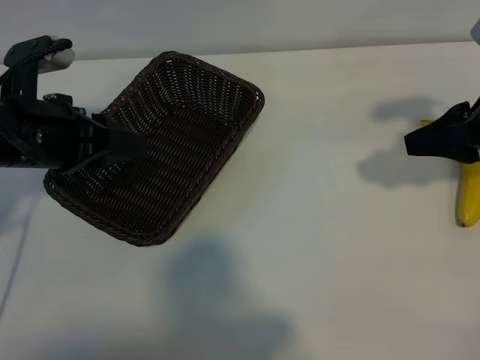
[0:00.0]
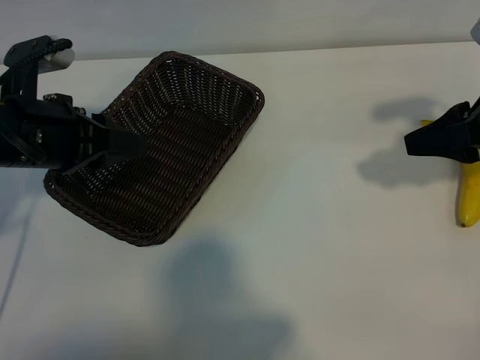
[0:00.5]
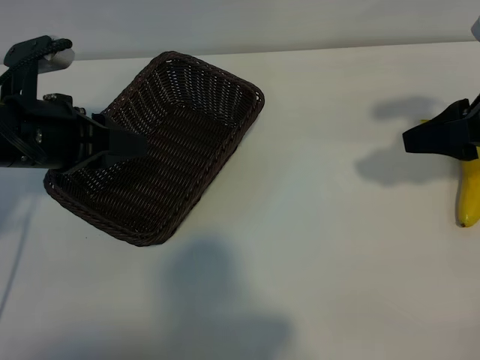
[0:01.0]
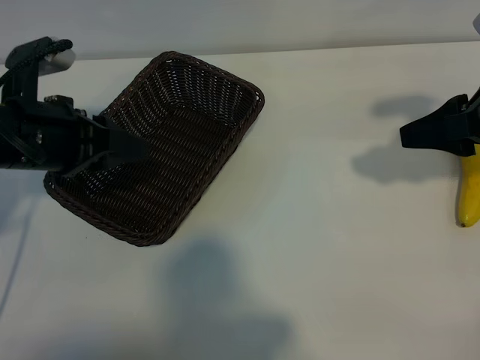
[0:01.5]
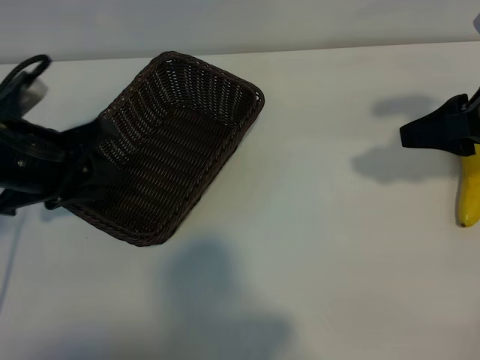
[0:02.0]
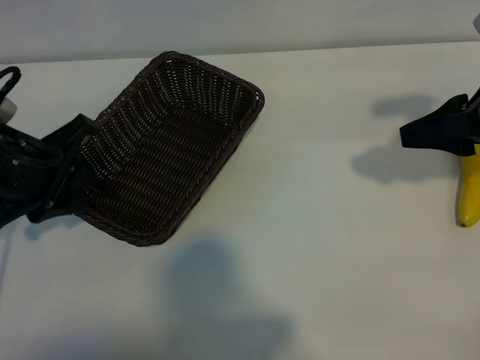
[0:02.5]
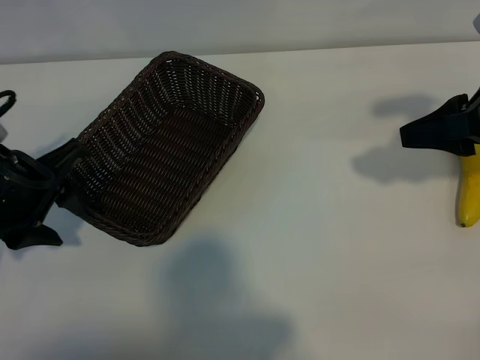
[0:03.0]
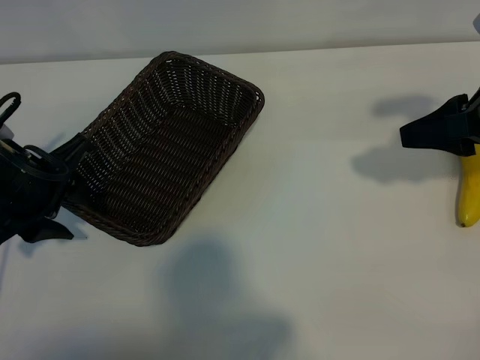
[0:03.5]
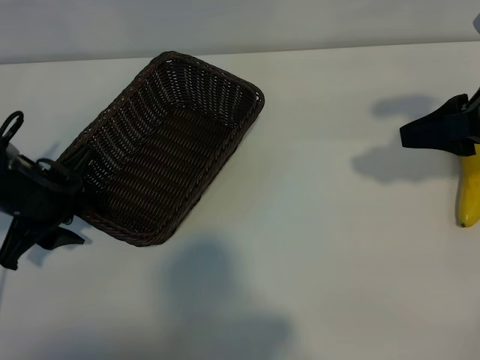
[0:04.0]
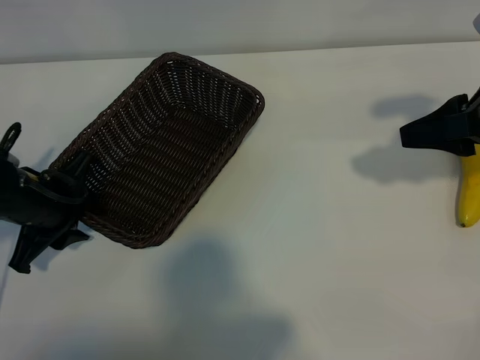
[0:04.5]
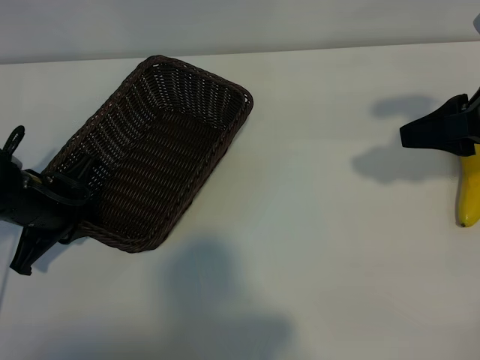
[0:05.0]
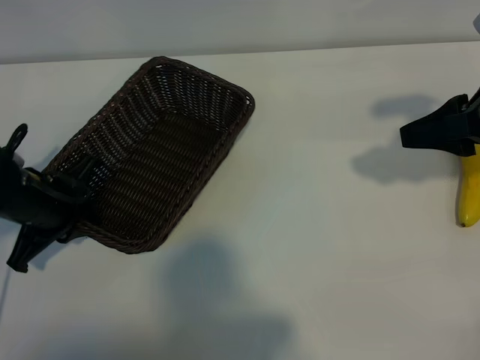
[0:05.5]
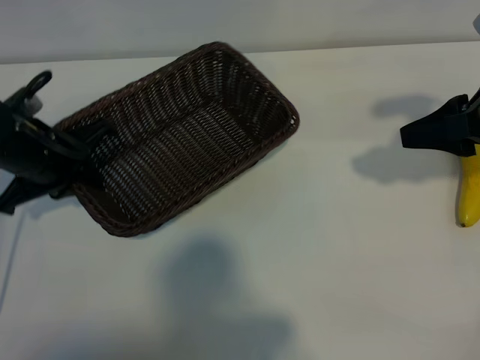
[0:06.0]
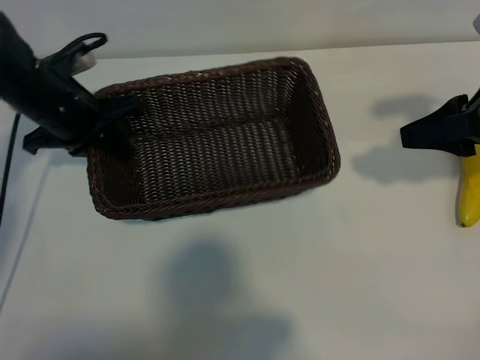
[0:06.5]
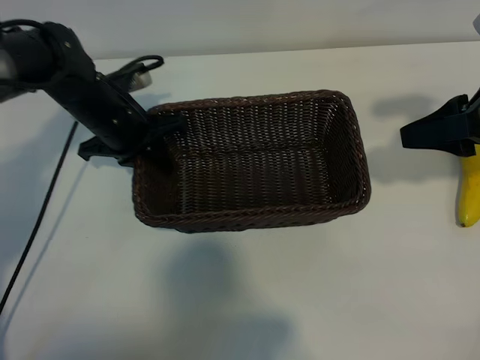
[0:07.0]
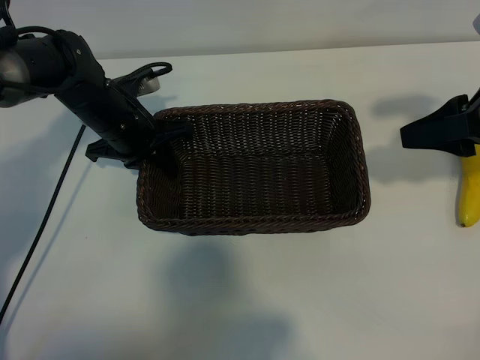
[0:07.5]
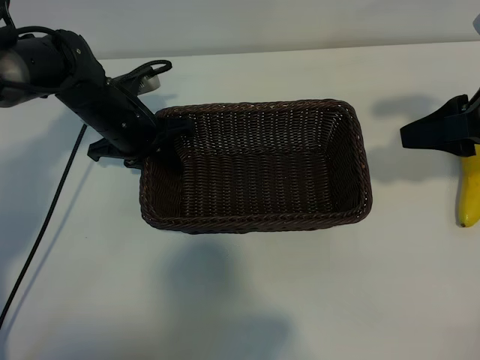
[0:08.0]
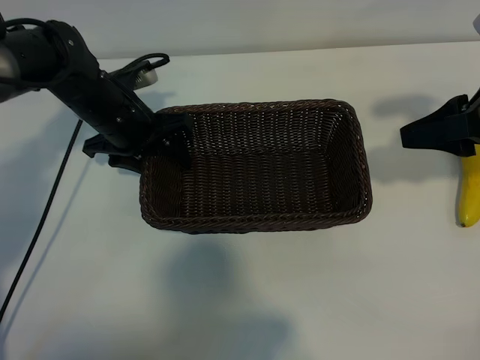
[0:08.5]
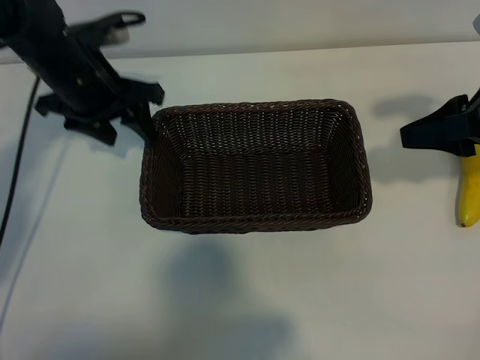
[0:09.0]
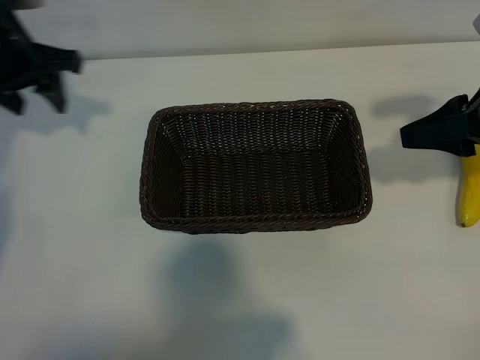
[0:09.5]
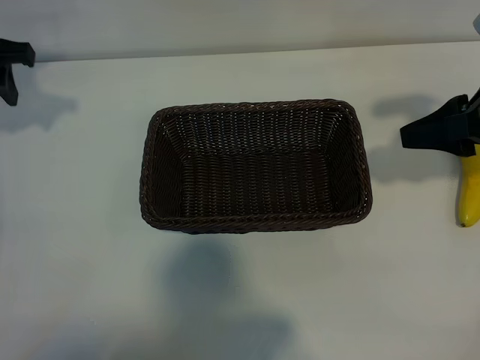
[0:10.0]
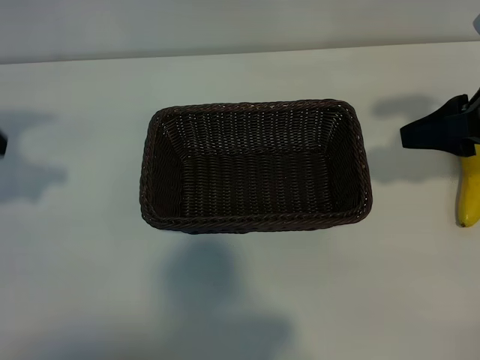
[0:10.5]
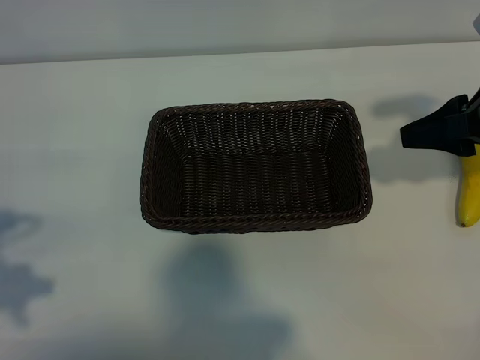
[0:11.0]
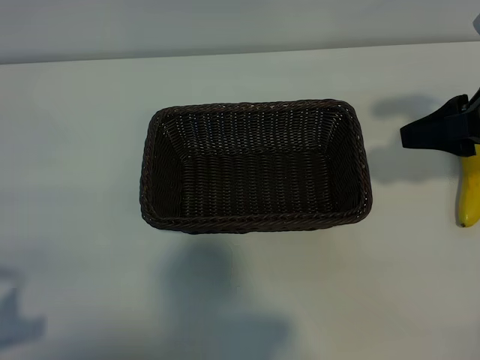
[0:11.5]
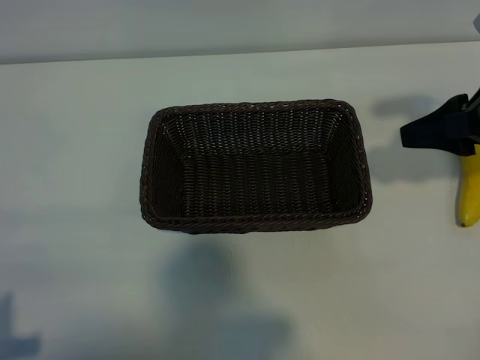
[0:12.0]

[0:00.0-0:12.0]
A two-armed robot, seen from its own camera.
Task of the whole recording: pick up the banana and put it into the basket.
Step, 0:01.0 to 0:04.5: Grasp the basket with the left gripper.
Step, 0:05.0 to 0:09.0: Place the basket in the center of the table with the left gripper.

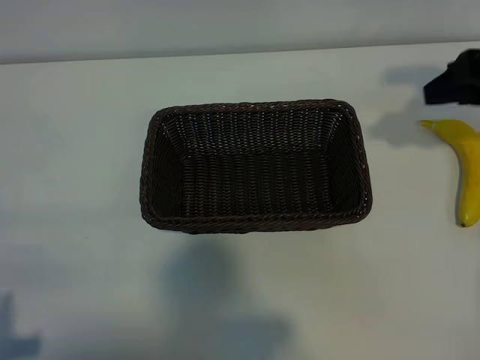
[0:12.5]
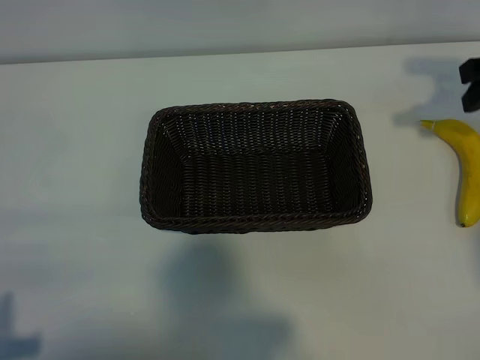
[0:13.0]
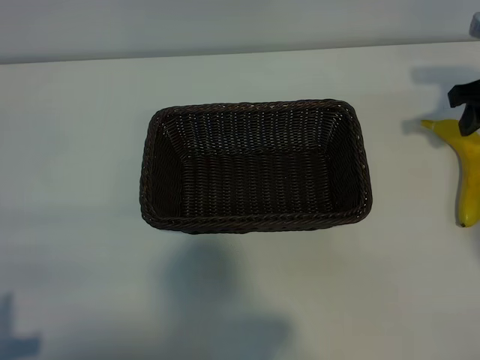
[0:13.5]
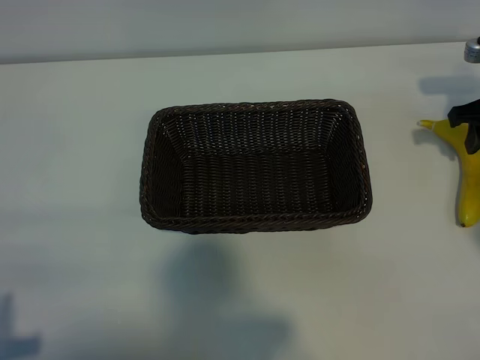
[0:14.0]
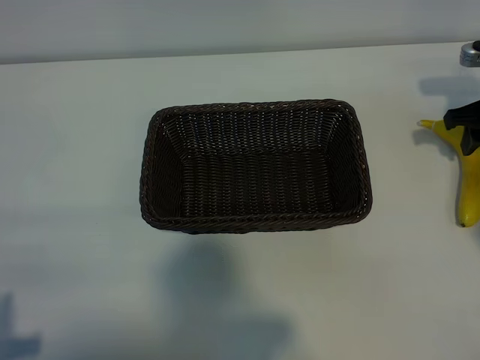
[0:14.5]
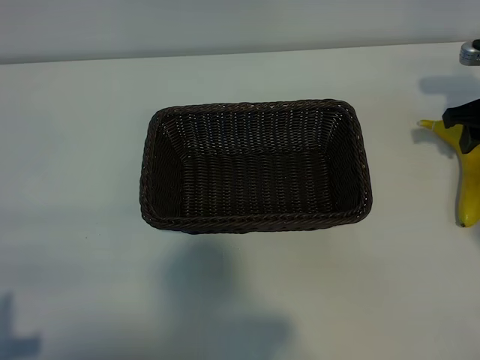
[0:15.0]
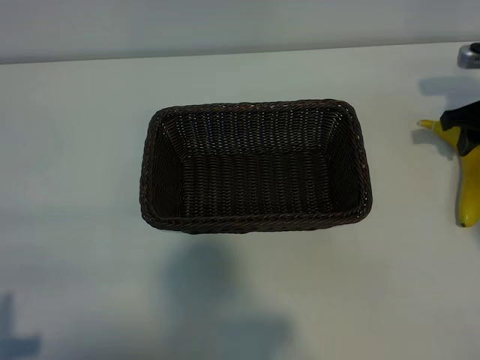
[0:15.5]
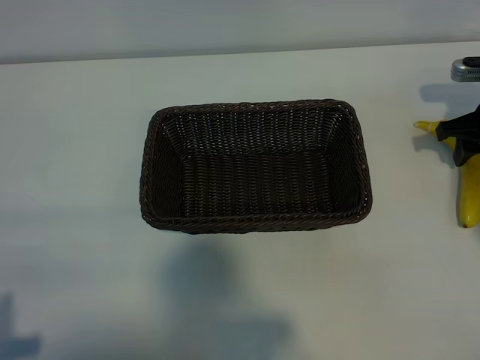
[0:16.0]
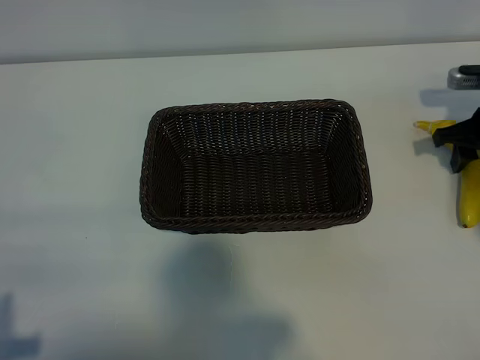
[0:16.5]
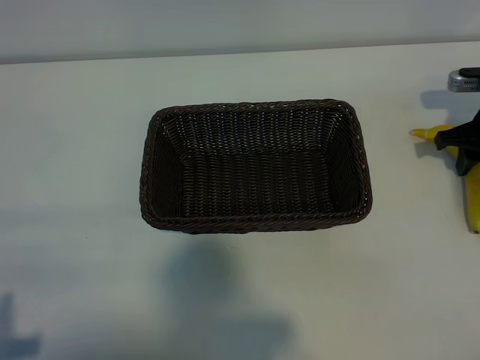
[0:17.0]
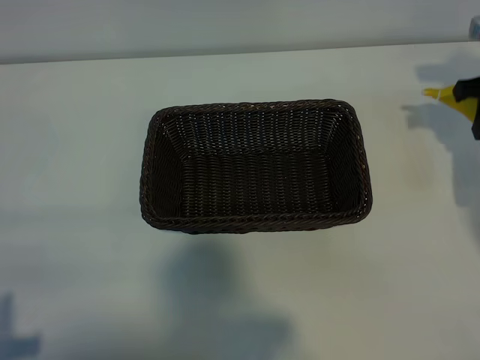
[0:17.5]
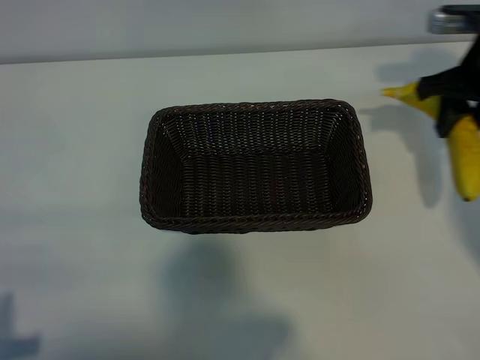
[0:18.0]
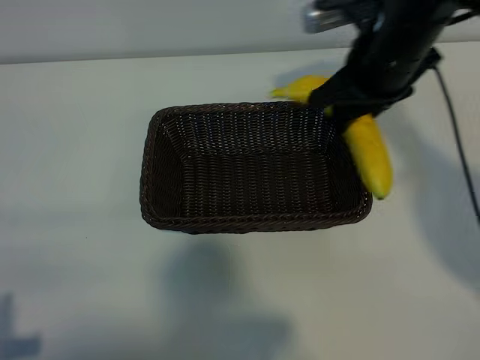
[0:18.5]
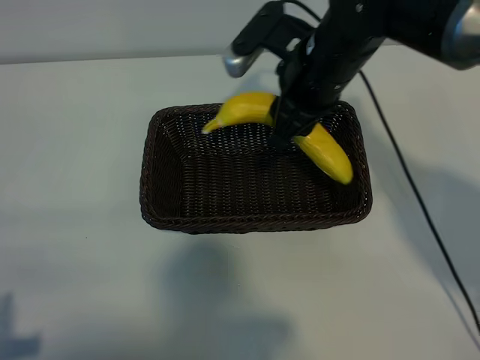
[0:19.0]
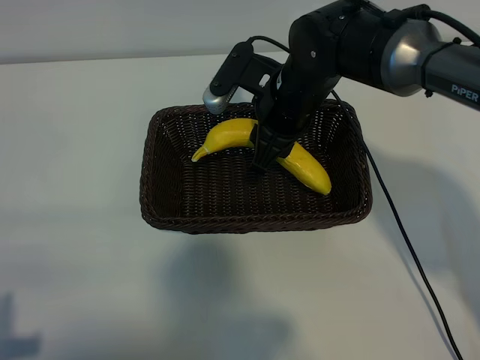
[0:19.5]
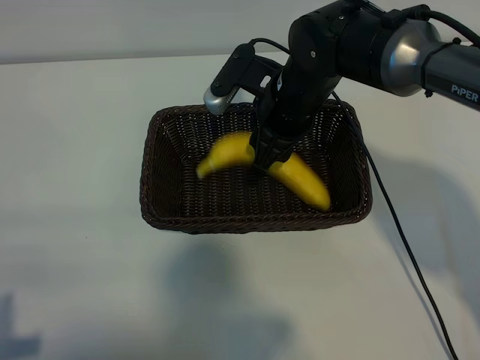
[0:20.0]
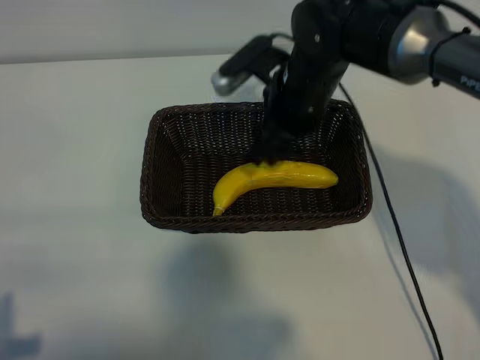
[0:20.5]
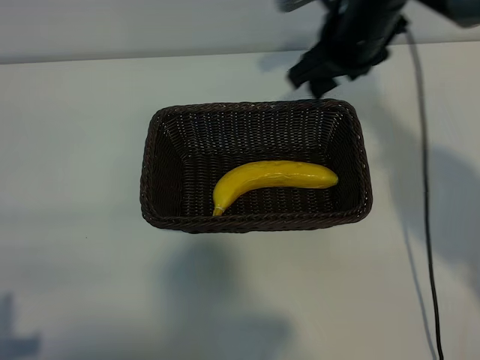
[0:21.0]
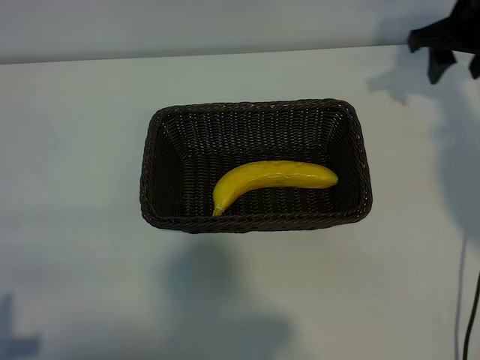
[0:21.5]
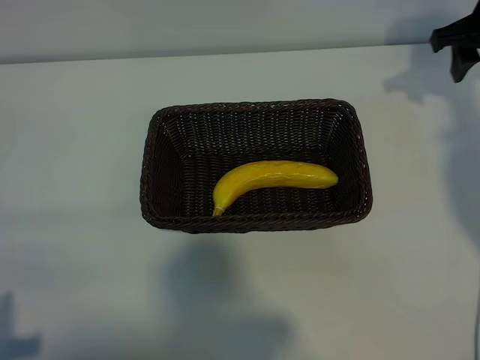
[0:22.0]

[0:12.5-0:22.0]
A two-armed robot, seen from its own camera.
Task of the whole recording: pick up the banana and put it into the basket.
Step, 0:12.5 to 0:16.5: Grasp the banana with right gripper.
Step, 0:17.0 to 0:20.5: Place the banana in the basket with right gripper.

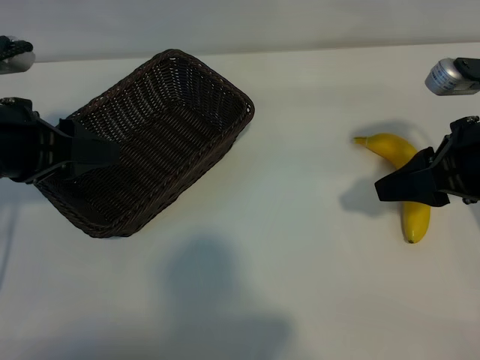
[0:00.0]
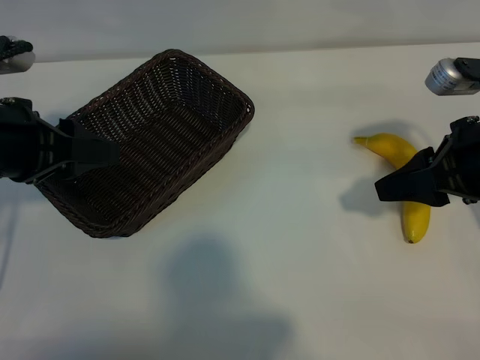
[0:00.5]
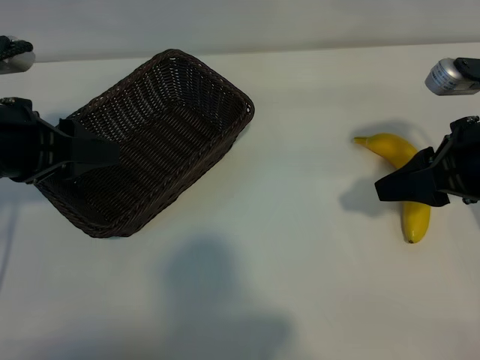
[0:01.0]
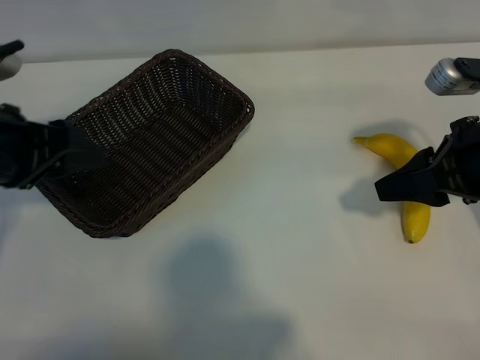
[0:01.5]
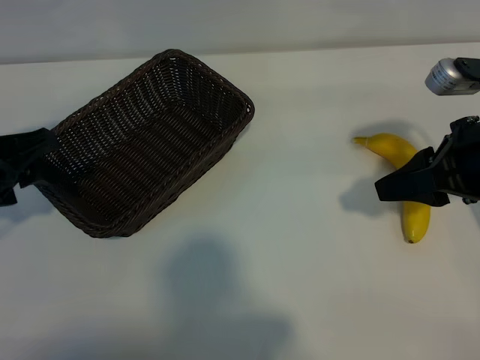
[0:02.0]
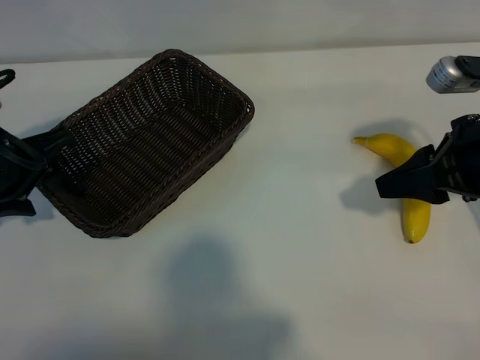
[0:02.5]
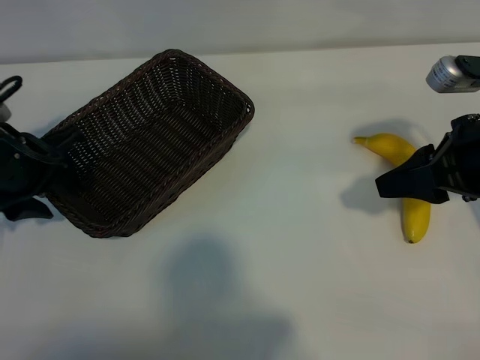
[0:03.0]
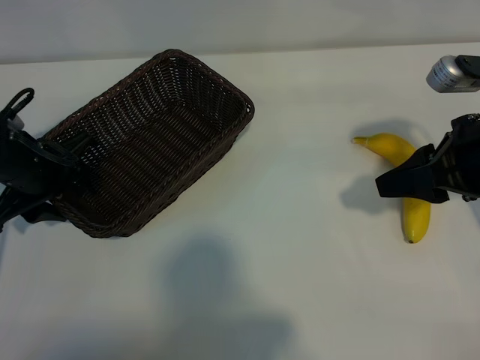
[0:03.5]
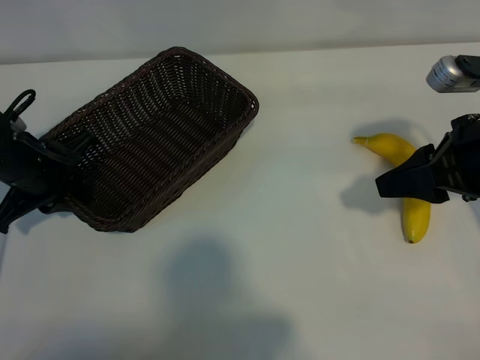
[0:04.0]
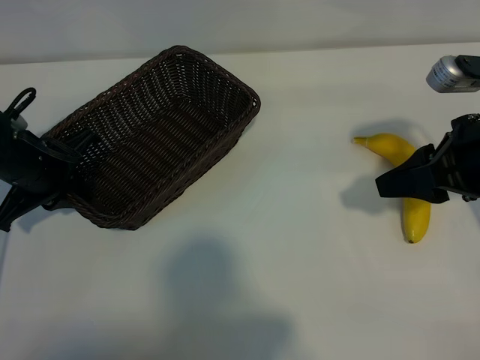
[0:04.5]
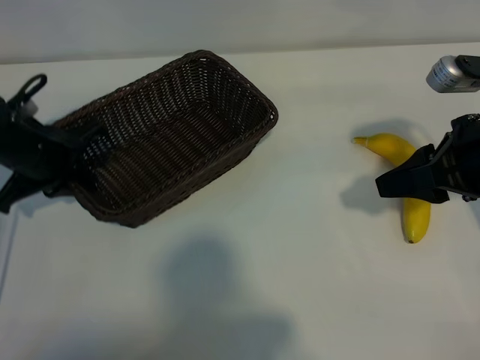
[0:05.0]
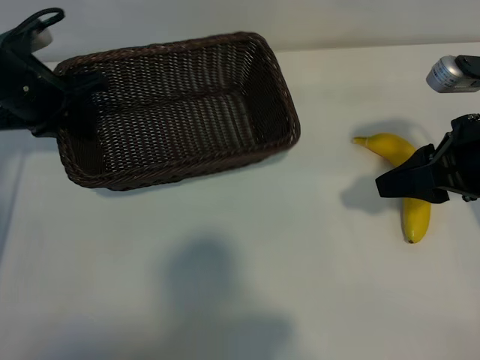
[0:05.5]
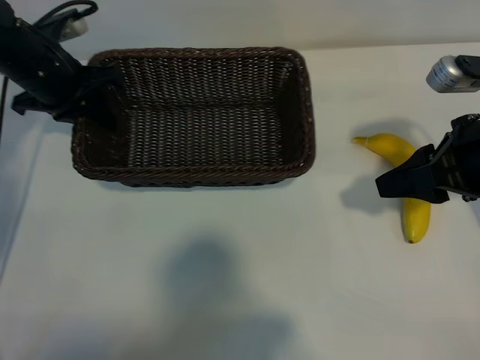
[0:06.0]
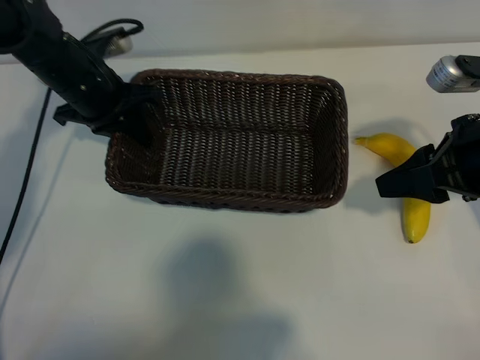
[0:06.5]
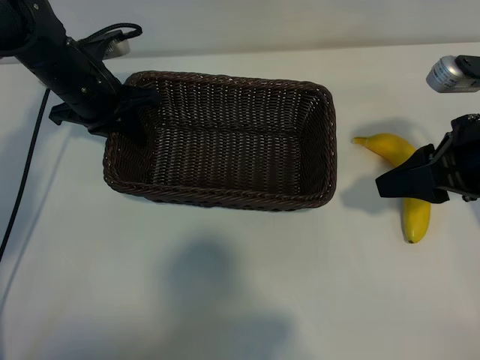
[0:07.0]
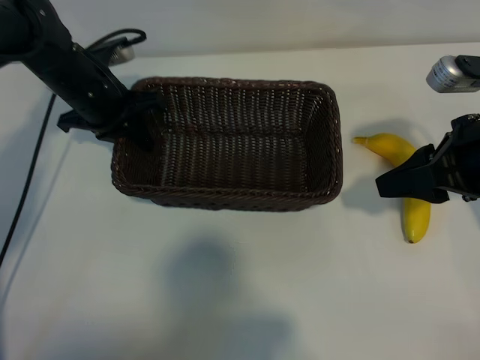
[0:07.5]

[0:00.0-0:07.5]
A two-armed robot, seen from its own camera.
Task of the whole recording: pick up the banana and put it into the basket.
Step, 0:01.5 to 0:04.0: Grasp the basket with the left gripper.
